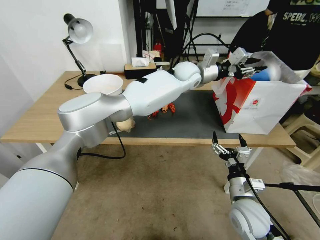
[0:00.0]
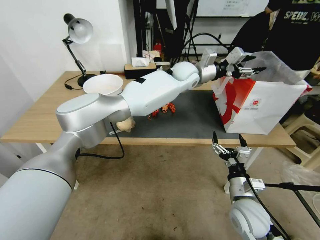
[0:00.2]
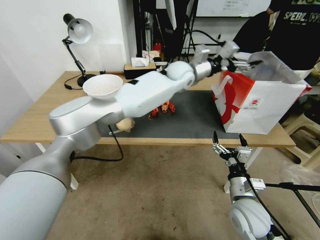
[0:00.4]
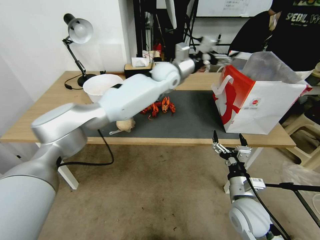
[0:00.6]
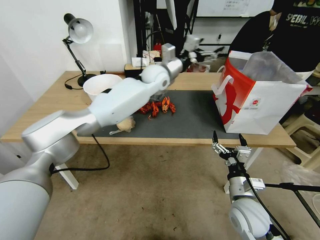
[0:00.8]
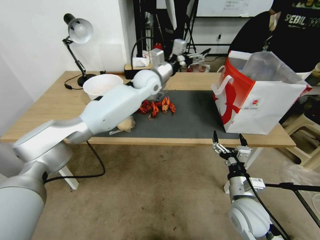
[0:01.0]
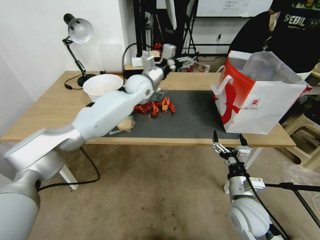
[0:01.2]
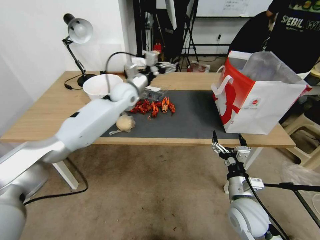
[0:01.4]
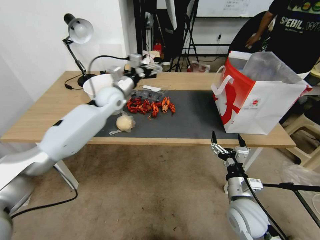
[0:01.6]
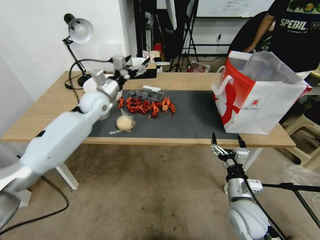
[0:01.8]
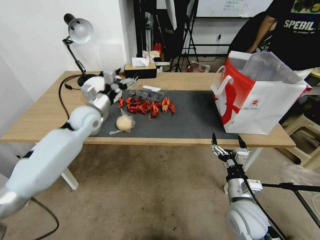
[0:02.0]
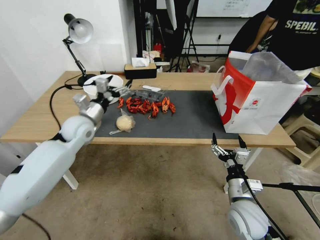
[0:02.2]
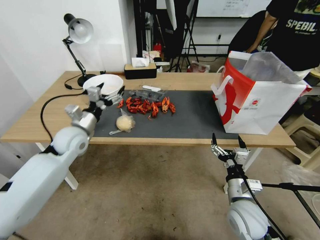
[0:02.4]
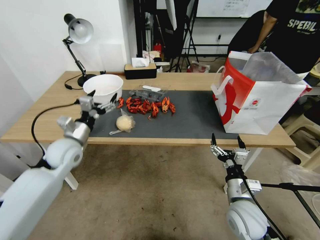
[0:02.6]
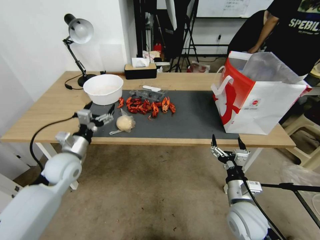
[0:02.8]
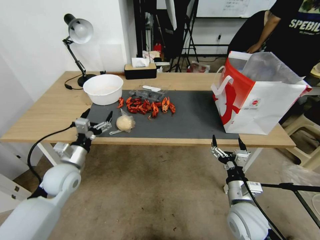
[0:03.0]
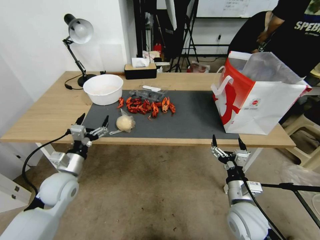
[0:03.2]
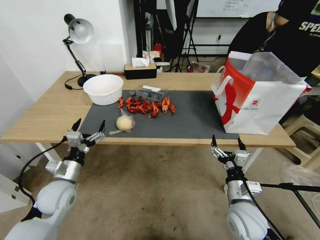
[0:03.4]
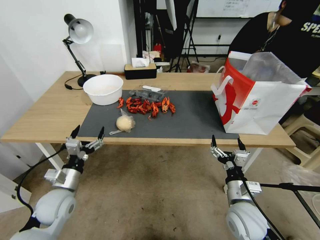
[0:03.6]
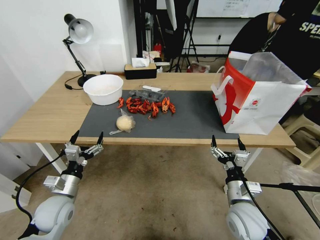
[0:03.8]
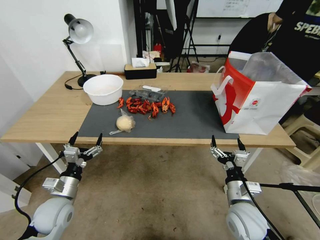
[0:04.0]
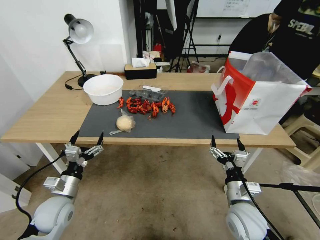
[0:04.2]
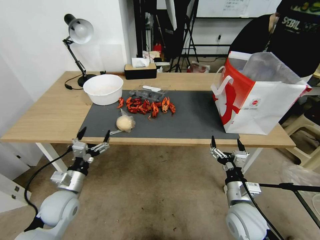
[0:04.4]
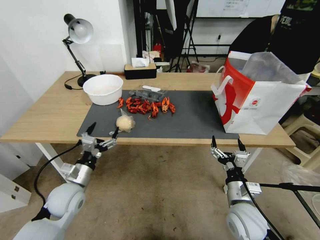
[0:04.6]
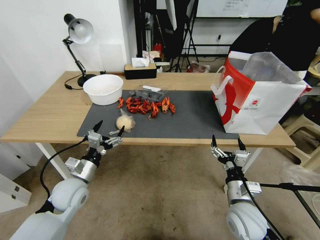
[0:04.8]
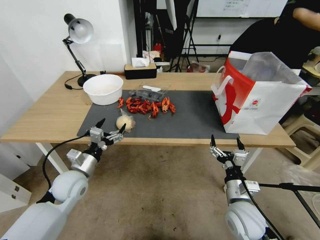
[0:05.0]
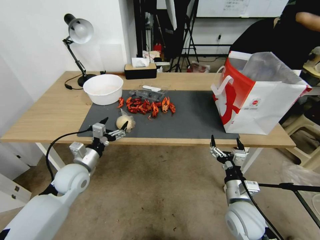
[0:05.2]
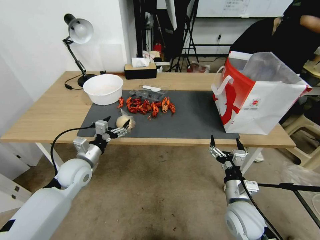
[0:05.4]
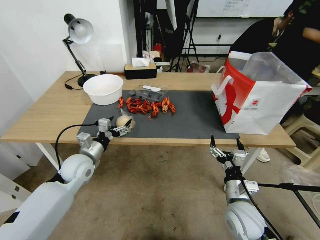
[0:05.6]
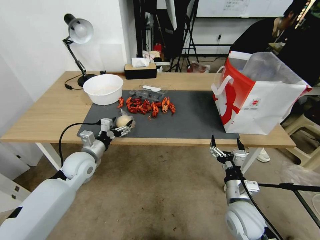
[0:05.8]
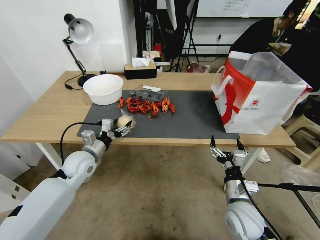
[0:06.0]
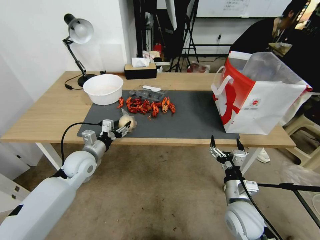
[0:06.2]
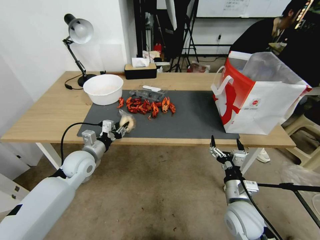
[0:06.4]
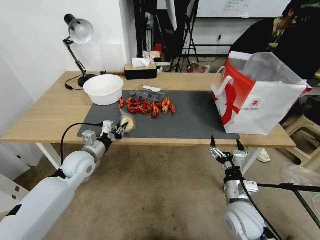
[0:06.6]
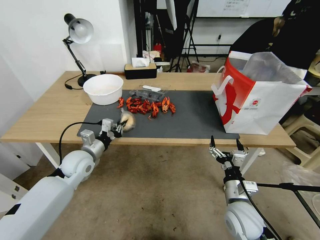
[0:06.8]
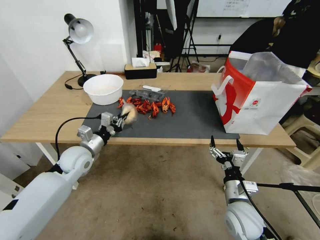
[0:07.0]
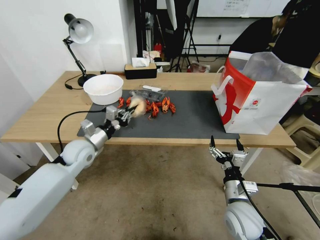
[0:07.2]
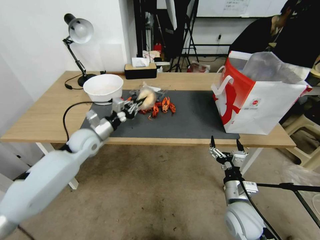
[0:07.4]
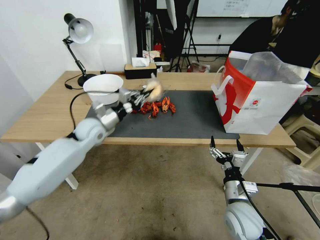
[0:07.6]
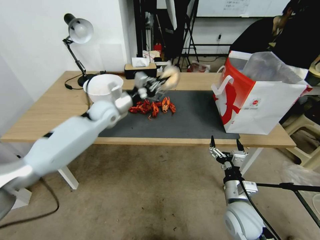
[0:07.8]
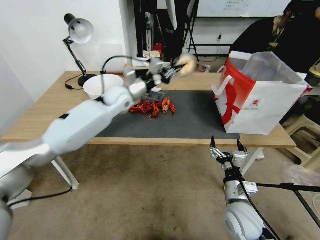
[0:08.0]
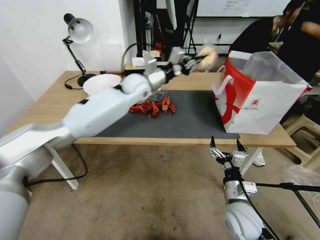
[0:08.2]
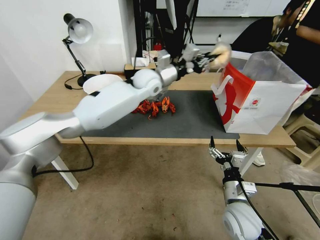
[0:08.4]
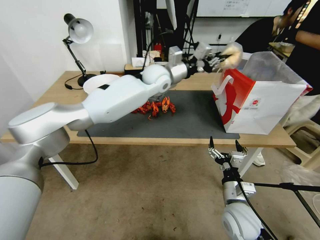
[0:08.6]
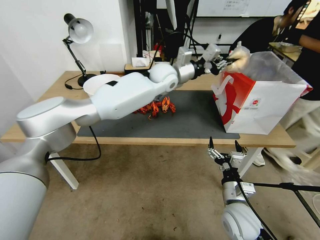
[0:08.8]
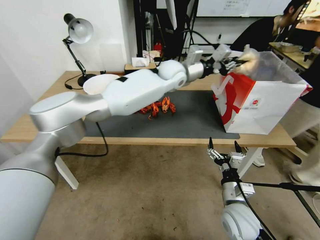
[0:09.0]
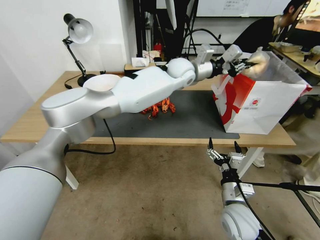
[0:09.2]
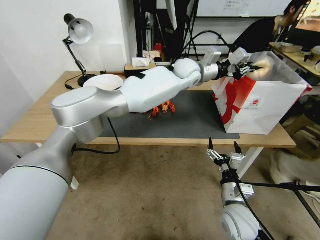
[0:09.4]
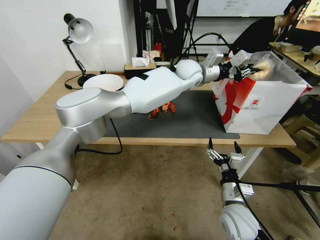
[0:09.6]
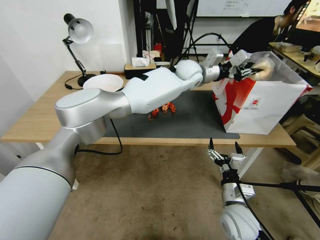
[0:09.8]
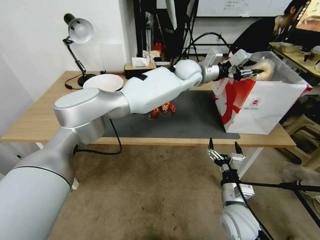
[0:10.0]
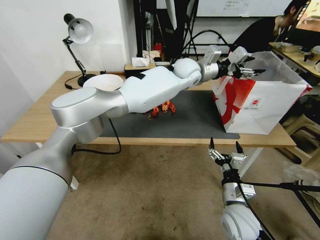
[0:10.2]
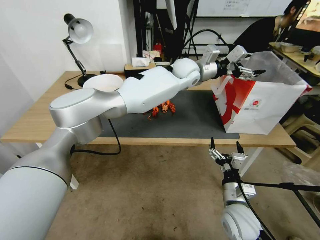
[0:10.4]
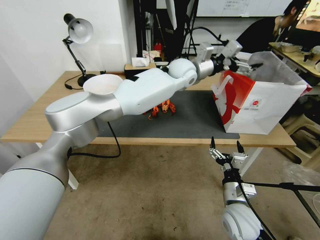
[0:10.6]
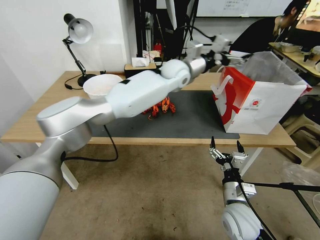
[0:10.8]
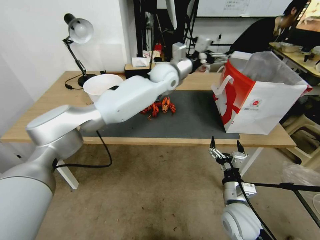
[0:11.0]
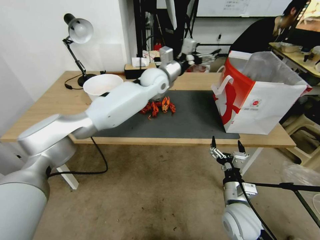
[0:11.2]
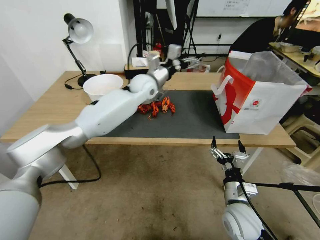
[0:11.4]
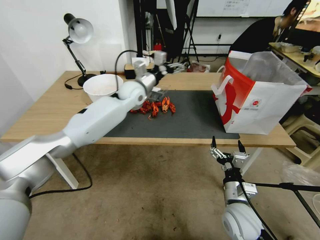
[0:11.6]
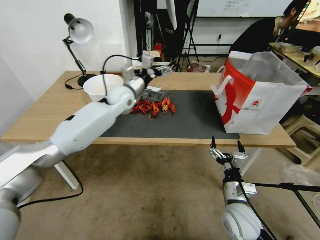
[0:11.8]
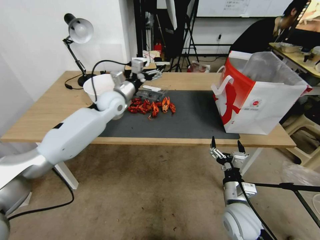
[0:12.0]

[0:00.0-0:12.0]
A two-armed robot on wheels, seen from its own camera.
0:00.0 to 0:01.6: The left gripper is displaced to the left by roughly 30 cm, and opens up.
0:01.6 to 0:03.0: The left gripper moves backward, downward and to the left, roughly 30 cm.
0:03.0 to 0:04.4: The left gripper travels backward and downward by about 10 cm.
0:04.4 to 0:06.0: The left gripper shifts roughly 10 cm forward.
0:06.0 to 0:07.6: The left gripper travels forward and upward by roughly 10 cm, and closes up.
0:07.6 to 0:09.0: The left gripper moves to the right, upward and forward, approximately 35 cm.
0:09.0 to 0:10.4: The left gripper opens up.
0:10.4 to 0:12.0: The left gripper is displaced to the left by some 25 cm.

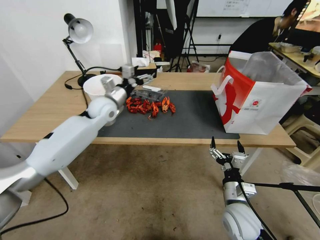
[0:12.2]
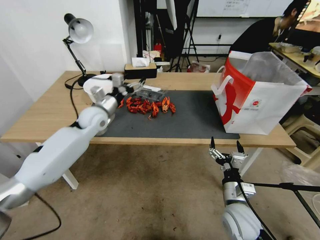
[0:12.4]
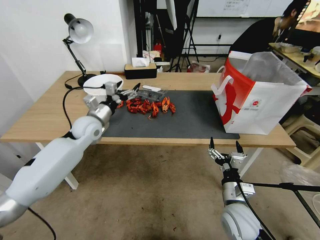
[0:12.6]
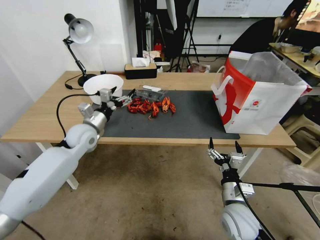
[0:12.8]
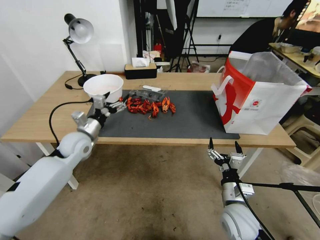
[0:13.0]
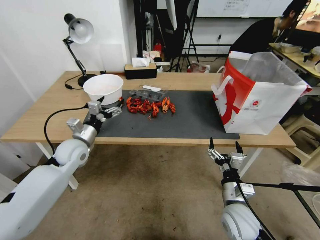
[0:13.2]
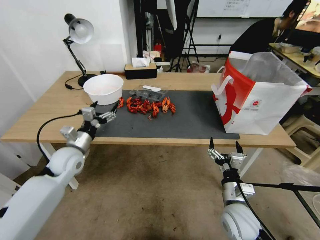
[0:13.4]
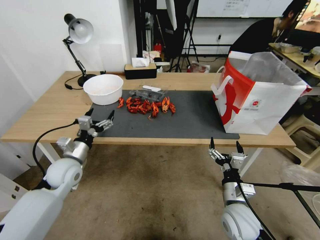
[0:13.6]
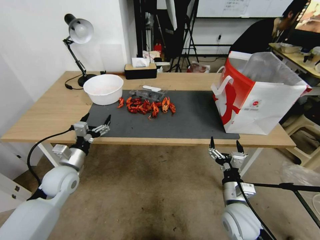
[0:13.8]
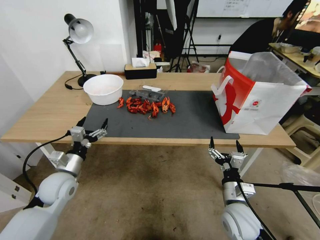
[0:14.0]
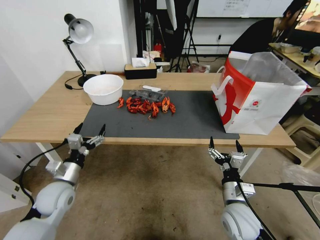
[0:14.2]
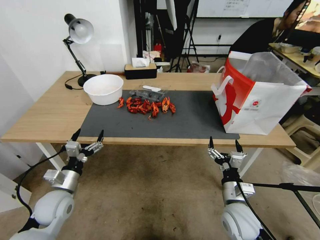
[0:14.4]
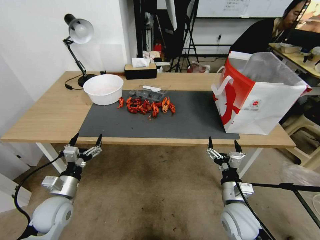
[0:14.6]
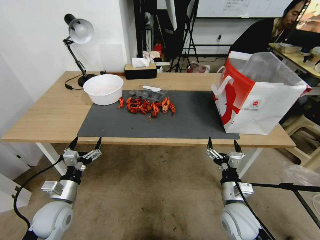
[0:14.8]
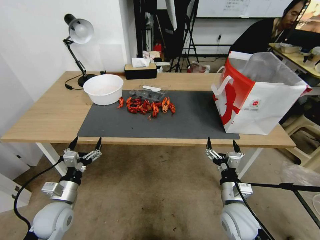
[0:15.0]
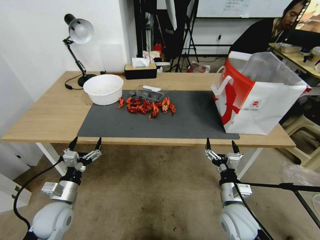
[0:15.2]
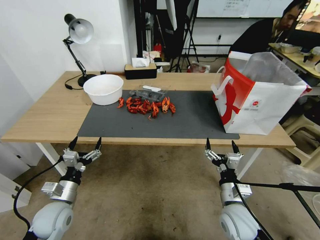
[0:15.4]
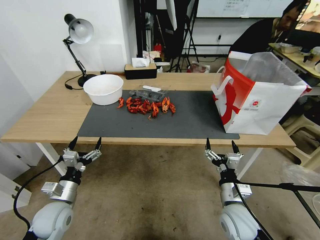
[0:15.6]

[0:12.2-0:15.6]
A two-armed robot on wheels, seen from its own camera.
0:12.2 to 0:13.8: The left gripper heads backward, downward and to the left, covering some 30 cm.
0:13.8 to 0:15.6: The left gripper travels backward and downward by some 10 cm.

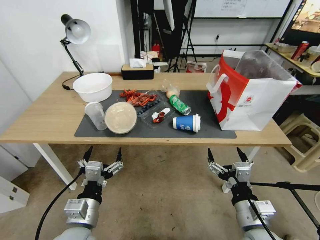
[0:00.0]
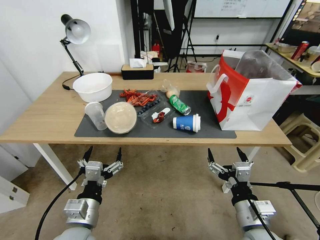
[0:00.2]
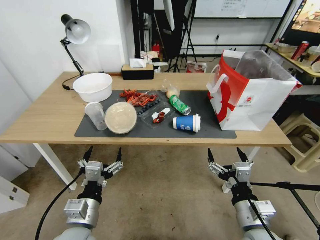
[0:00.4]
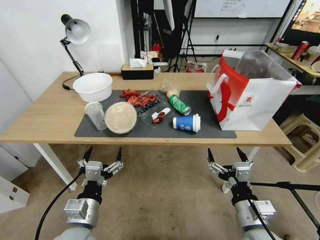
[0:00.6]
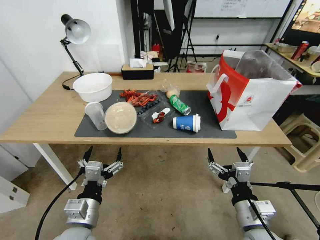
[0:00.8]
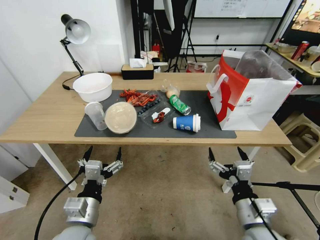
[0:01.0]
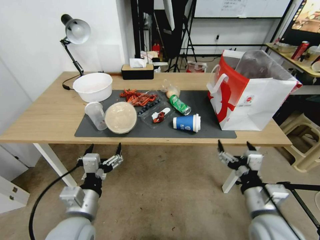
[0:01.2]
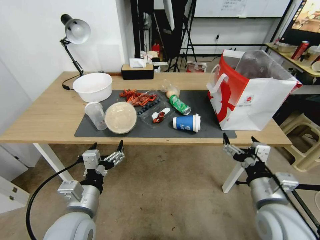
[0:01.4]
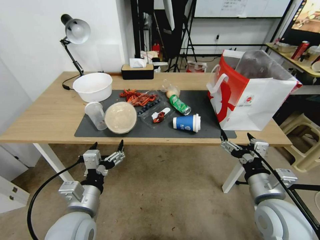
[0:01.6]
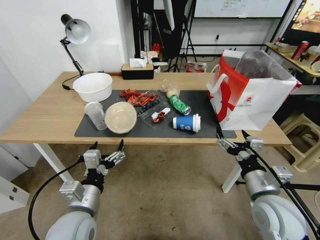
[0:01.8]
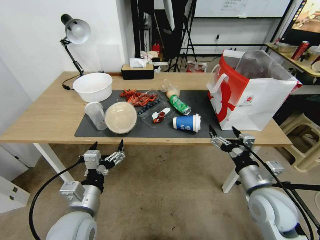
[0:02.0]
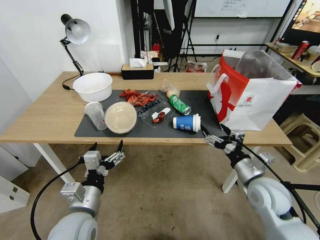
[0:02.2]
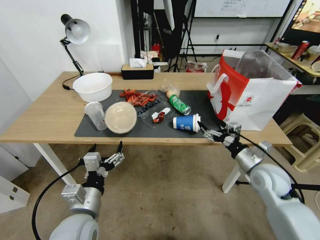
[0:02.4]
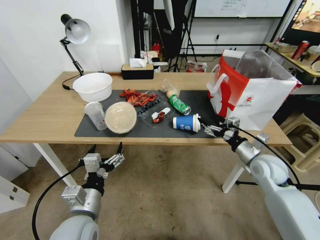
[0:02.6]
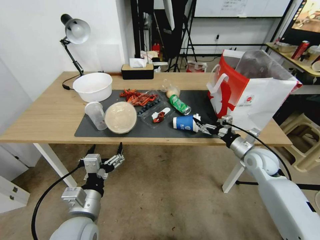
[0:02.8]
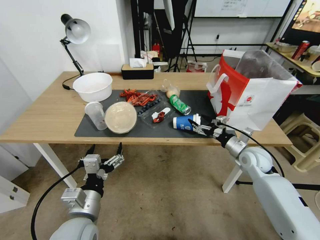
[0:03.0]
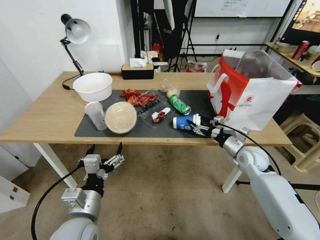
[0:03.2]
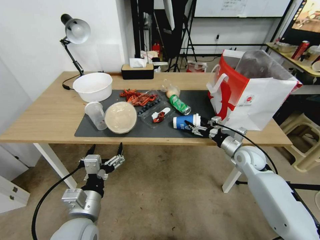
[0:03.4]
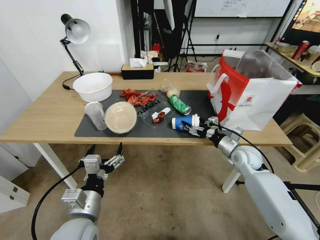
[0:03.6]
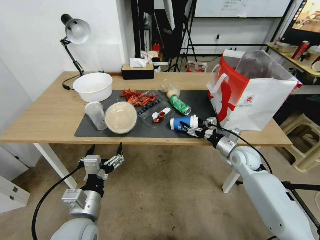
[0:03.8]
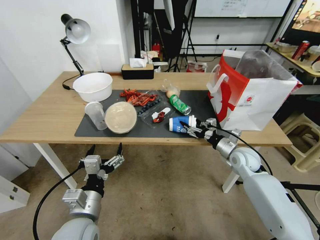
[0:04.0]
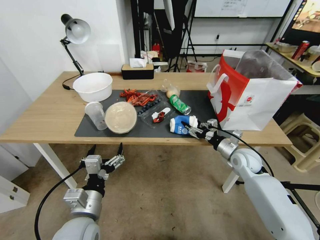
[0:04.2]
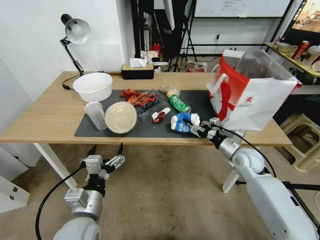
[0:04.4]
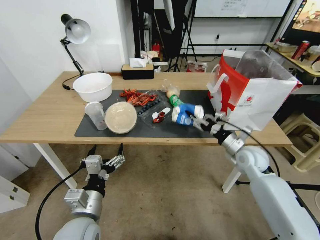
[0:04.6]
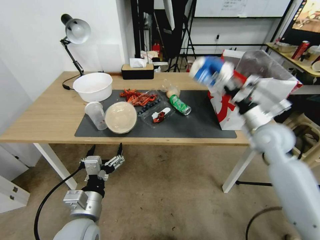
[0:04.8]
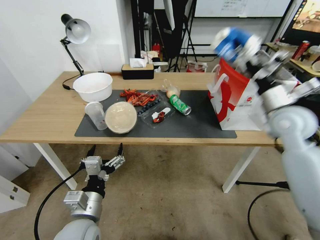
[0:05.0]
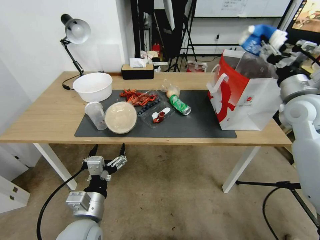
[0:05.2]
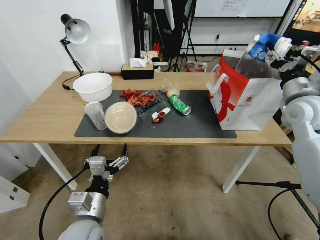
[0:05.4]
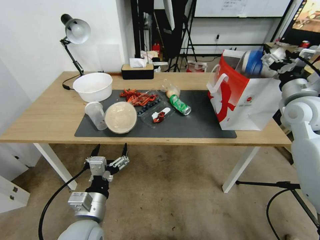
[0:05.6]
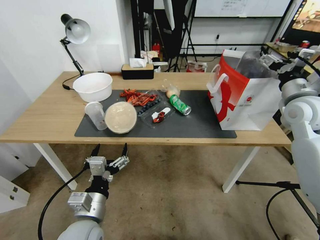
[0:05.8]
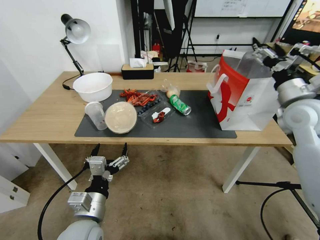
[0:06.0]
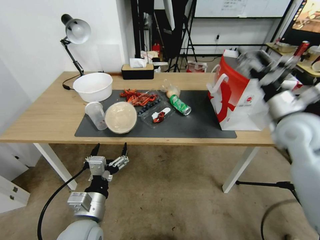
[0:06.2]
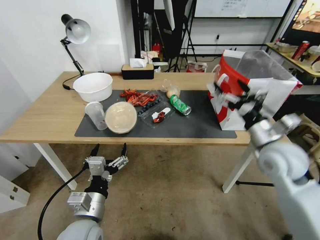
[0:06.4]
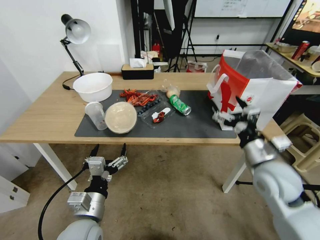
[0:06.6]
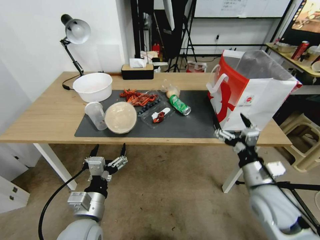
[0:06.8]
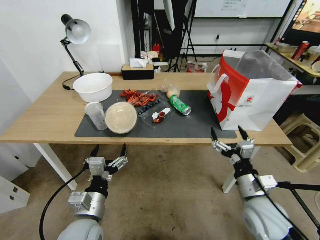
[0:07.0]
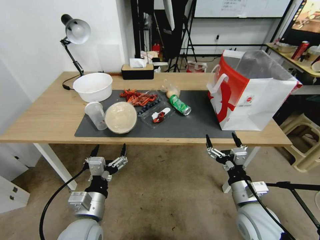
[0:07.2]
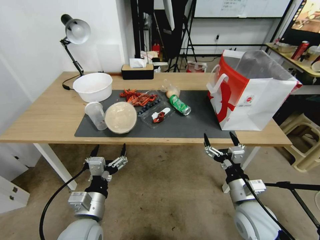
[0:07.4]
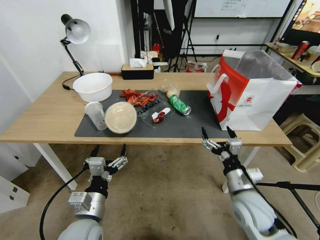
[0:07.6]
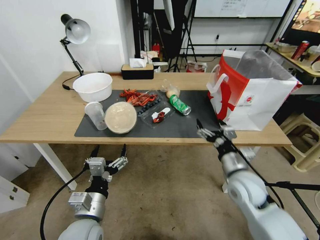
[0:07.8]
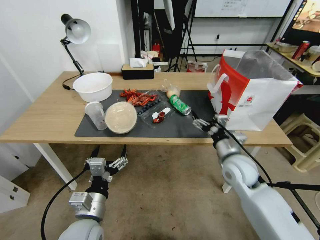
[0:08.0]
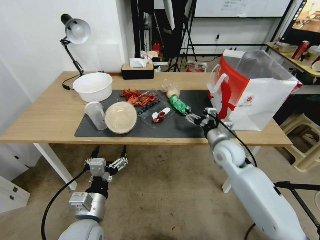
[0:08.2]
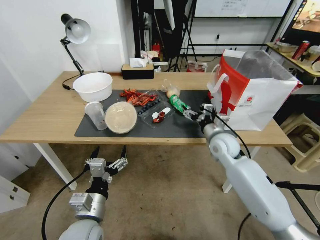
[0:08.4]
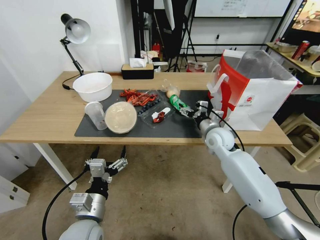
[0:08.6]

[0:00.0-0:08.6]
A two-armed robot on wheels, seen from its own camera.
0:01.4 to 0:02.8: The right gripper heads forward and to the right, covering about 20 cm.
0:02.8 to 0:04.4: The right gripper closes.
0:04.4 to 0:05.8: The right gripper goes about 25 cm upward, and opens.
0:05.8 to 0:07.2: The right gripper travels downward, backward and to the left by about 30 cm.
0:07.2 to 0:08.6: The right gripper goes roughly 25 cm forward.
